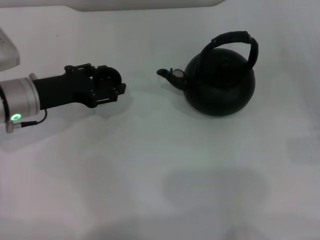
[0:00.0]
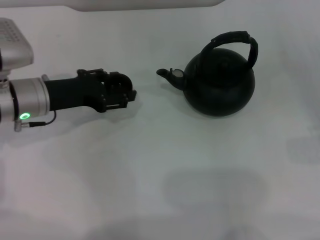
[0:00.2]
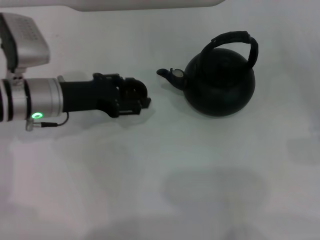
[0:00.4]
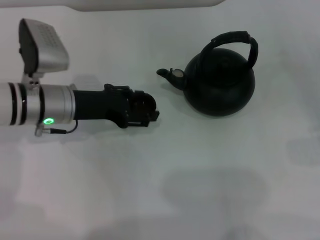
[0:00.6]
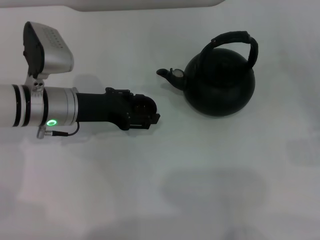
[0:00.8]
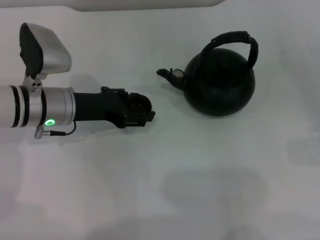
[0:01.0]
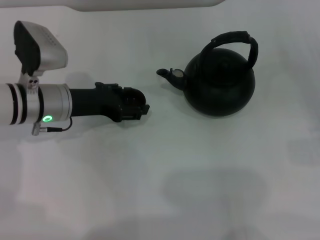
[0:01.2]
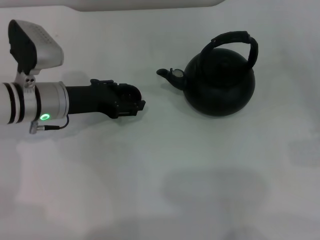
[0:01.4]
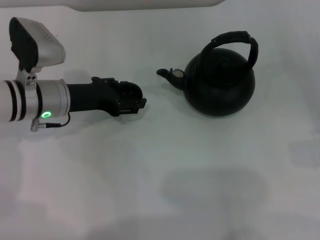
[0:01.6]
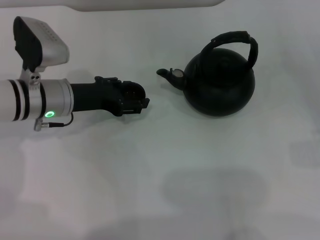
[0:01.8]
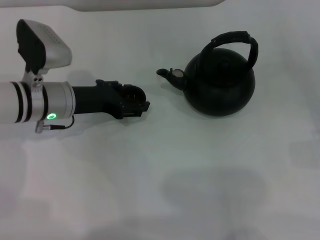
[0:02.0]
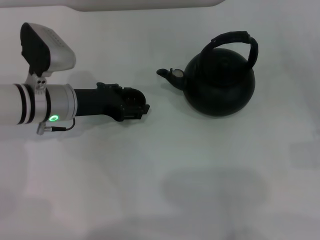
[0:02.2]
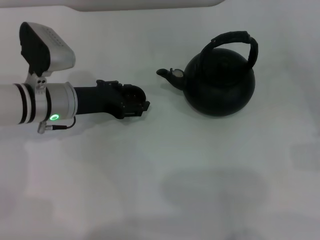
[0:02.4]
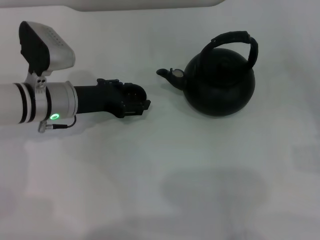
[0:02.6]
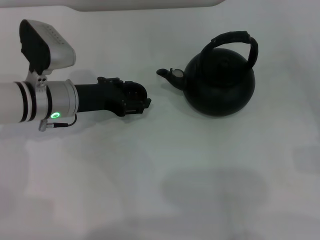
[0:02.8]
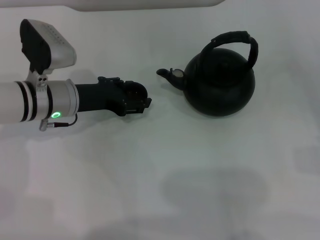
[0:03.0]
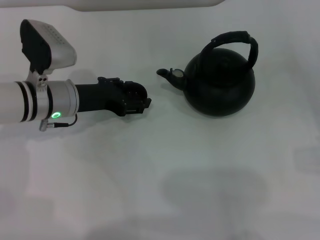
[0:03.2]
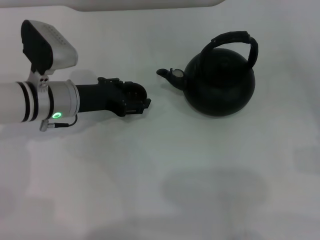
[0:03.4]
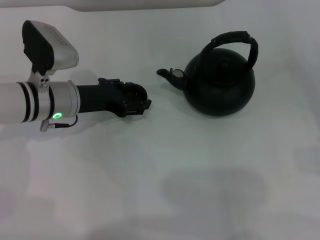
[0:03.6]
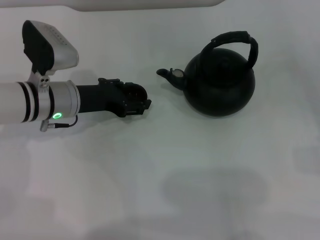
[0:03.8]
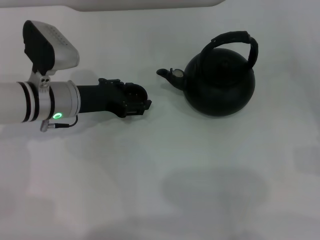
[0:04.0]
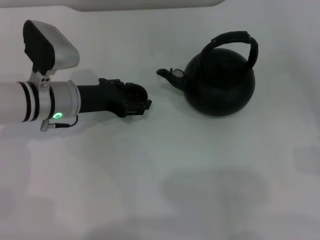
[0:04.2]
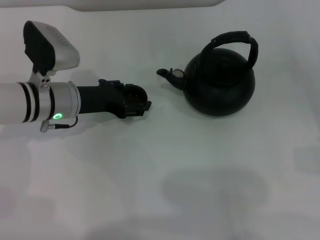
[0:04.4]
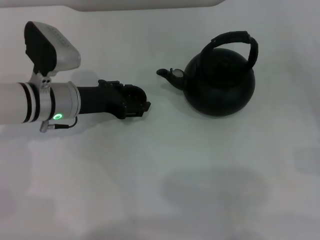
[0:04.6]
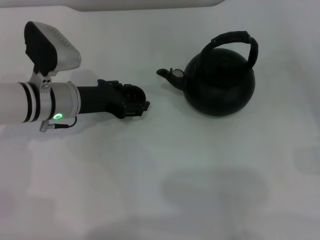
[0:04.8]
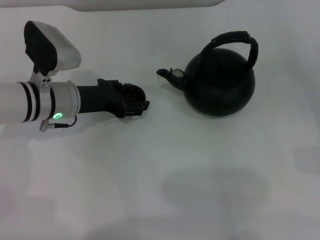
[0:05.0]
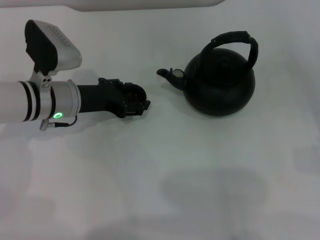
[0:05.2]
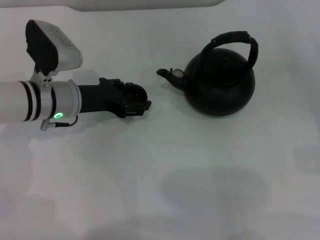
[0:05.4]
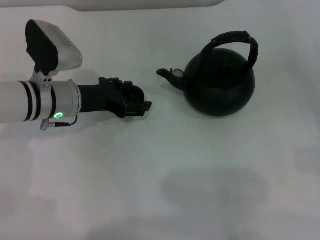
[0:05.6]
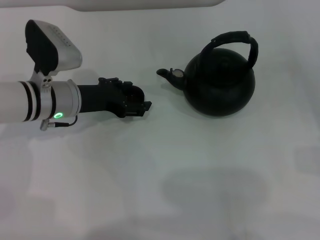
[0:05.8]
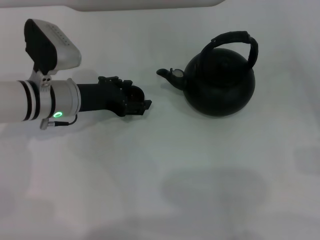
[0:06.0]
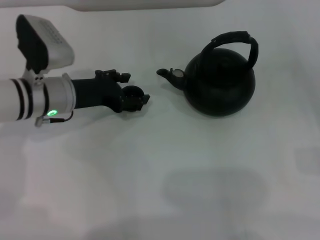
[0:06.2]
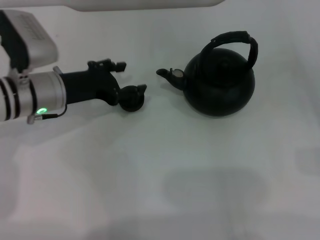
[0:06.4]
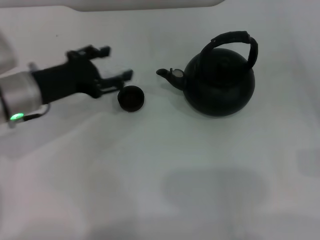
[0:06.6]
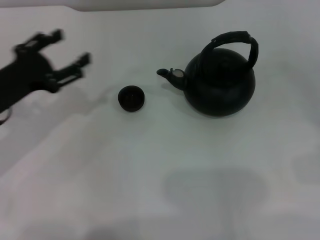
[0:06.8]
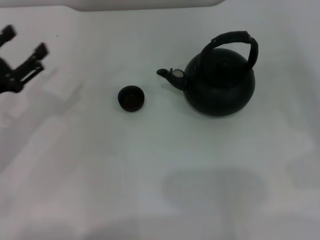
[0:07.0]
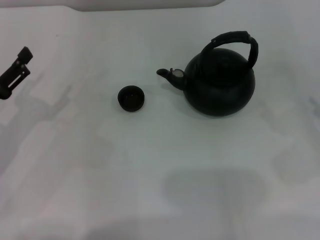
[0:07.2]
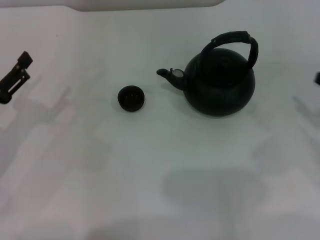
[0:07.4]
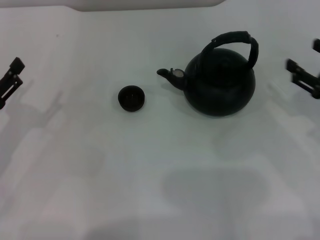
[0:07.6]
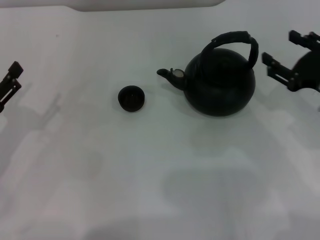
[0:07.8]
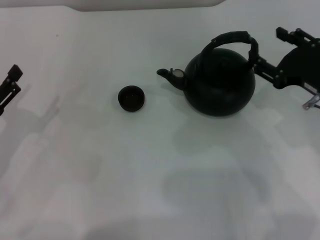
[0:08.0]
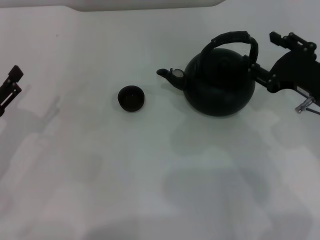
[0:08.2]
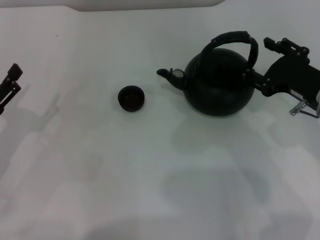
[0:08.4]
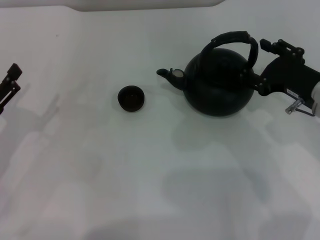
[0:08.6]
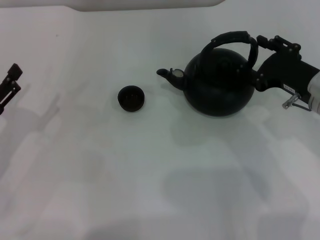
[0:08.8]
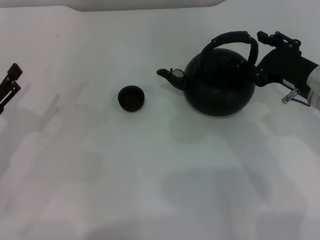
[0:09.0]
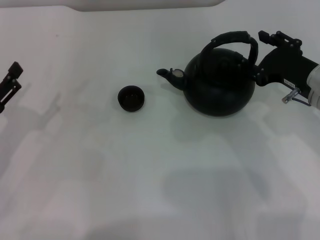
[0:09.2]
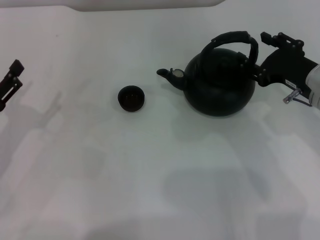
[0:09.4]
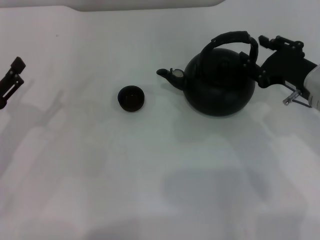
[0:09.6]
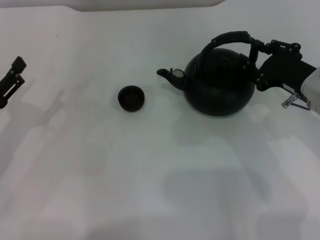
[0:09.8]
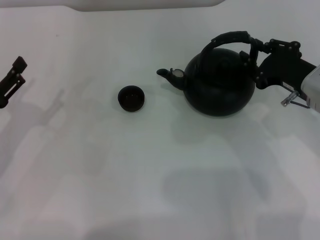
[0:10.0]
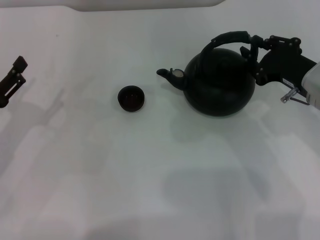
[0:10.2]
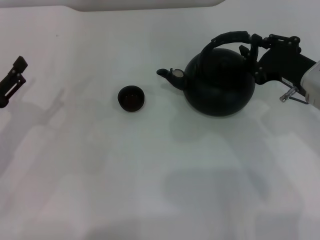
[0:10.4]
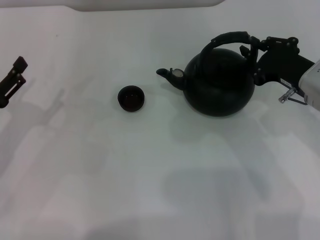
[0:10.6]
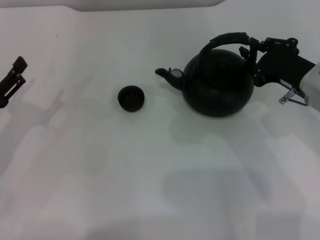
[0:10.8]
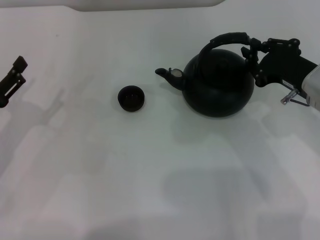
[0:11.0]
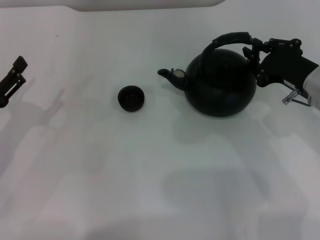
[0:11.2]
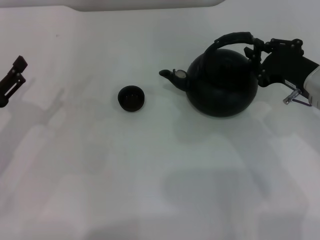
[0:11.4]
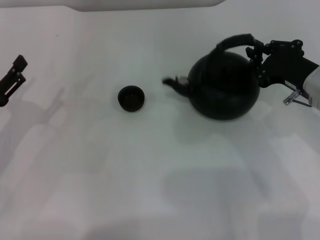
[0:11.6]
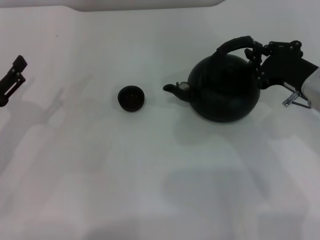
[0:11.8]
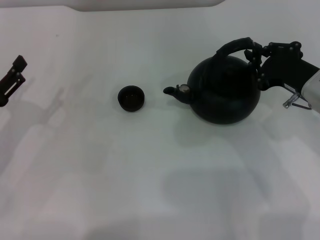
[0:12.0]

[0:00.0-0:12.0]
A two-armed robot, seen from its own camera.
Task of the whole recording: Grasp the handle of the teapot with one hand and pour tea into the teacup.
Step, 0:00.0 to 0:06.2: Place the teacup in the center of view with the left gripper.
0:00.0 to 0:01.6: There are only small adjustments of the grippers.
0:01.6 to 0:03.0: Neither gripper changes place.
0:03.0 to 0:04.4: Both grippers stay about where they are.
0:04.4 to 0:06.0: The left gripper opens up.
0:06.0 to 0:07.6: The left gripper travels to the left and backward by approximately 20 cm. The right gripper is displaced to the left and upward by about 10 cm.
0:07.6 to 0:09.0: The right gripper shifts approximately 10 cm to the left.
0:09.0 to 0:10.4: The right gripper closes up.
0:10.4 to 0:12.0: Both grippers stay put.

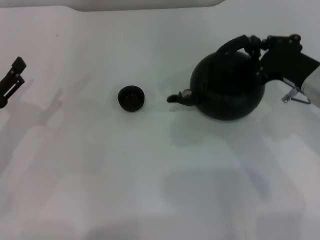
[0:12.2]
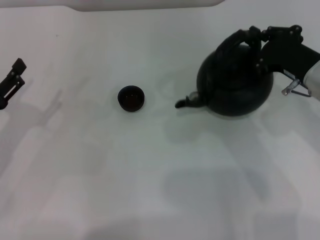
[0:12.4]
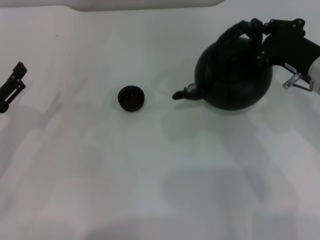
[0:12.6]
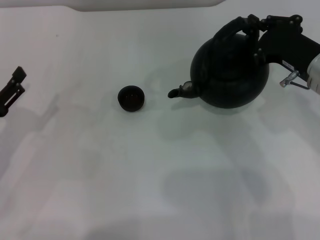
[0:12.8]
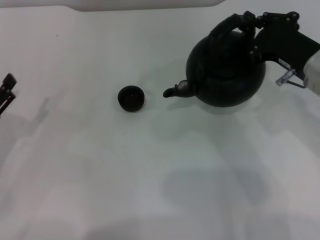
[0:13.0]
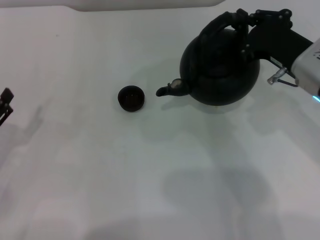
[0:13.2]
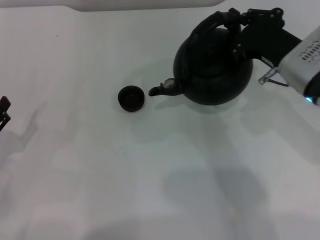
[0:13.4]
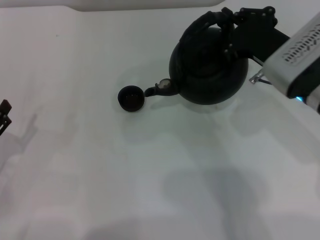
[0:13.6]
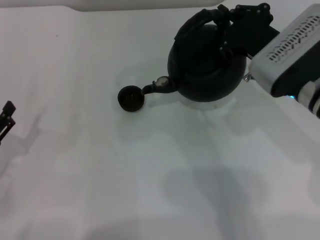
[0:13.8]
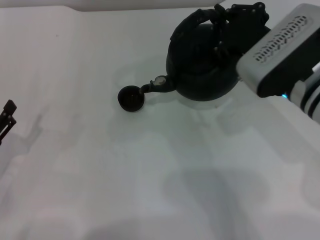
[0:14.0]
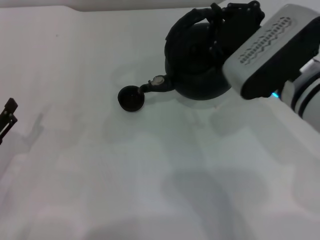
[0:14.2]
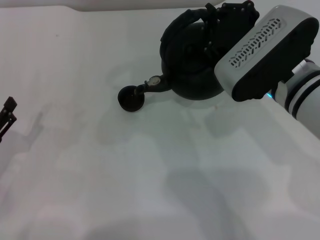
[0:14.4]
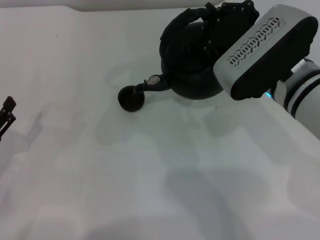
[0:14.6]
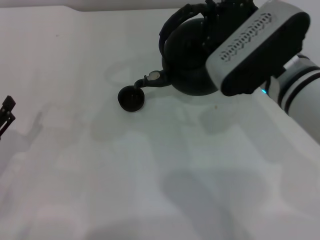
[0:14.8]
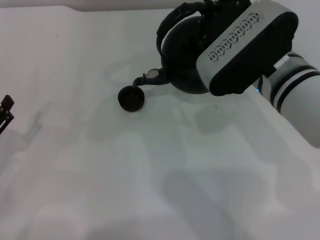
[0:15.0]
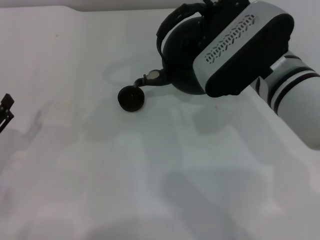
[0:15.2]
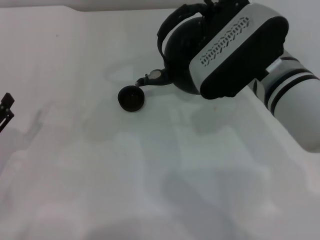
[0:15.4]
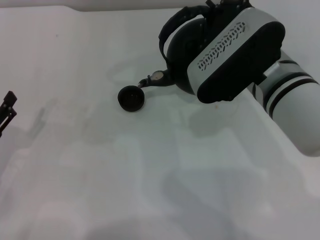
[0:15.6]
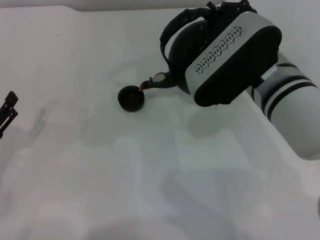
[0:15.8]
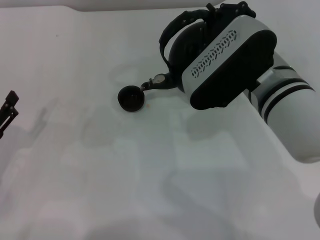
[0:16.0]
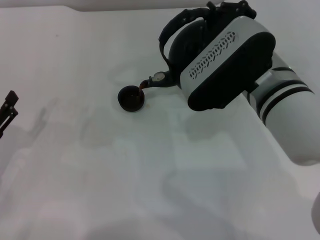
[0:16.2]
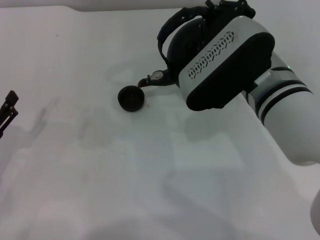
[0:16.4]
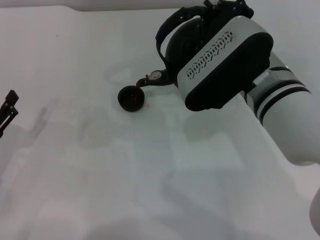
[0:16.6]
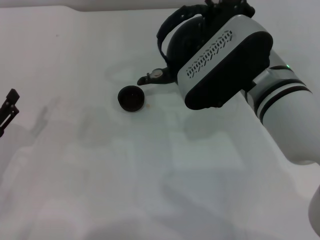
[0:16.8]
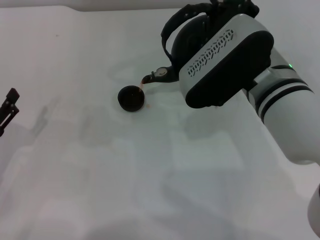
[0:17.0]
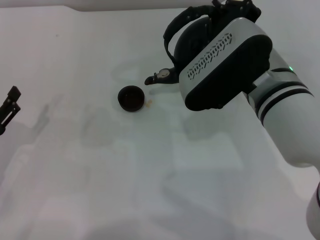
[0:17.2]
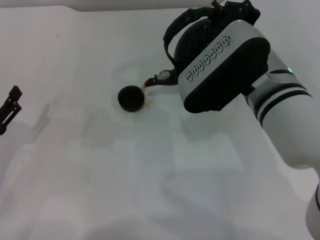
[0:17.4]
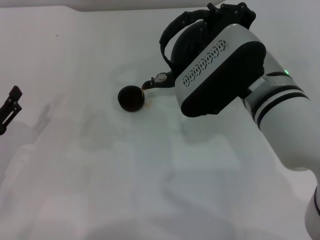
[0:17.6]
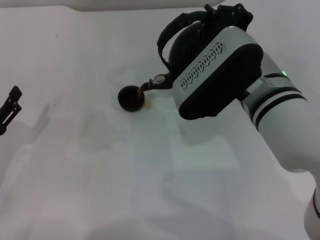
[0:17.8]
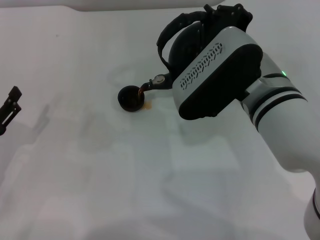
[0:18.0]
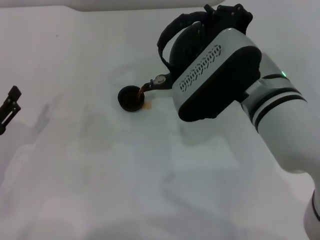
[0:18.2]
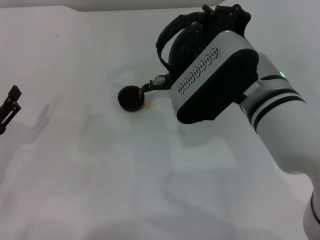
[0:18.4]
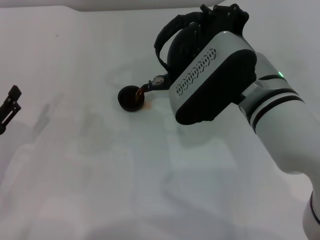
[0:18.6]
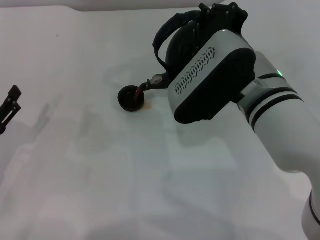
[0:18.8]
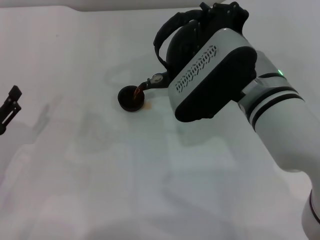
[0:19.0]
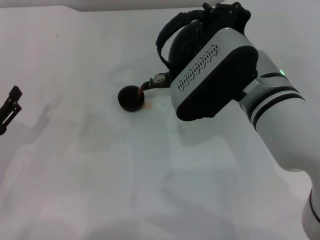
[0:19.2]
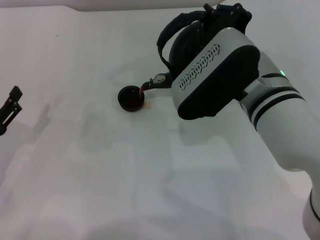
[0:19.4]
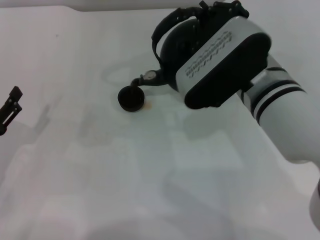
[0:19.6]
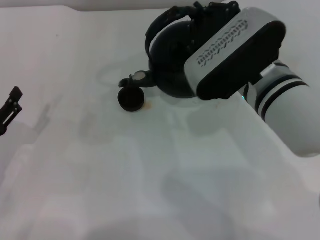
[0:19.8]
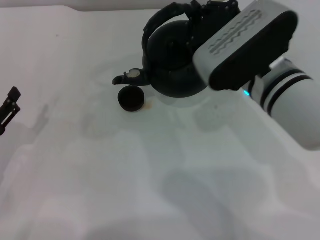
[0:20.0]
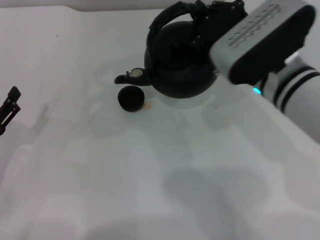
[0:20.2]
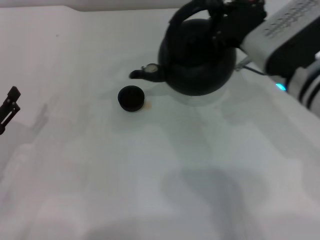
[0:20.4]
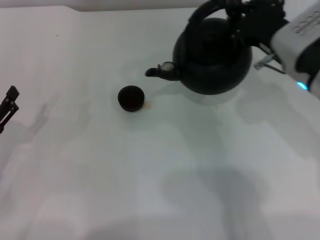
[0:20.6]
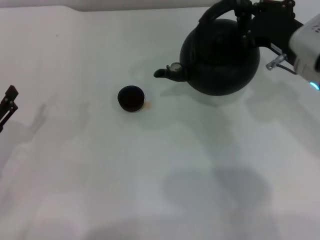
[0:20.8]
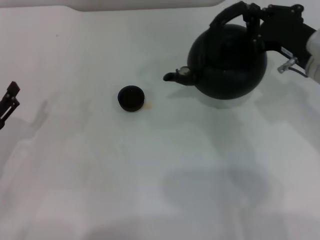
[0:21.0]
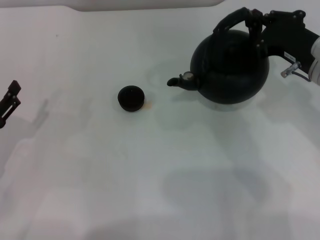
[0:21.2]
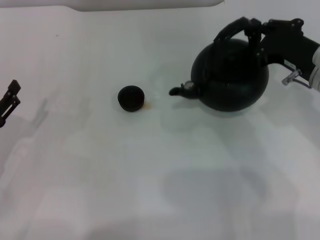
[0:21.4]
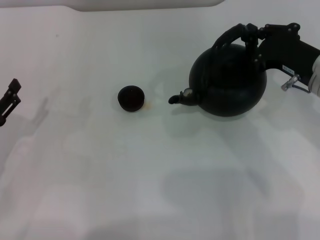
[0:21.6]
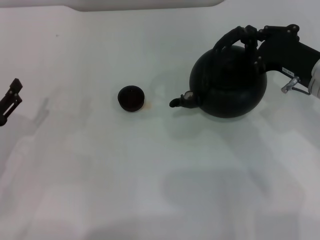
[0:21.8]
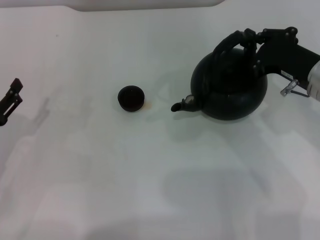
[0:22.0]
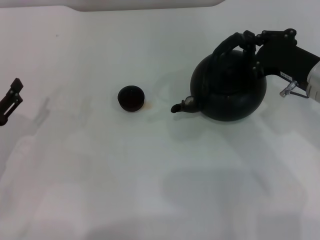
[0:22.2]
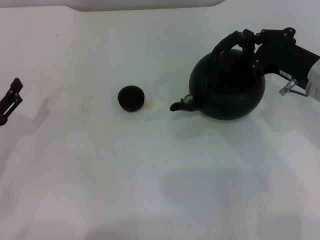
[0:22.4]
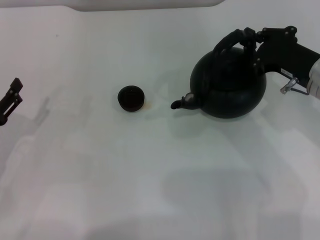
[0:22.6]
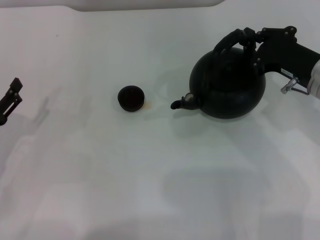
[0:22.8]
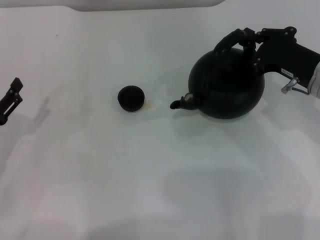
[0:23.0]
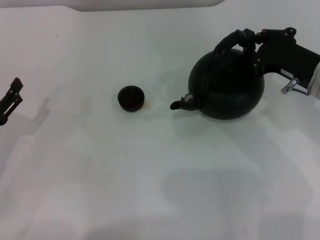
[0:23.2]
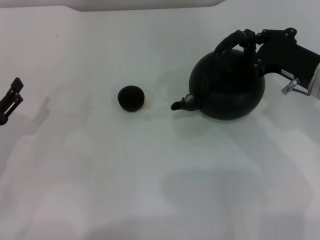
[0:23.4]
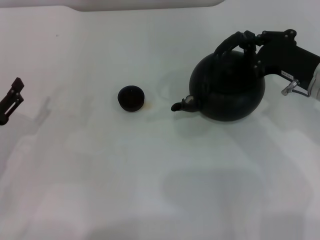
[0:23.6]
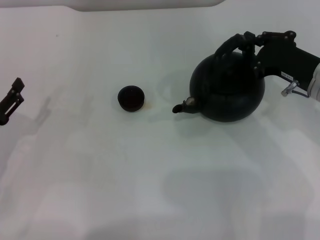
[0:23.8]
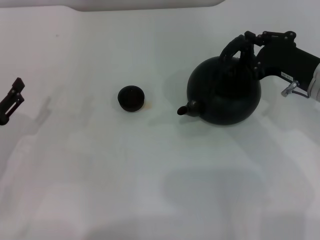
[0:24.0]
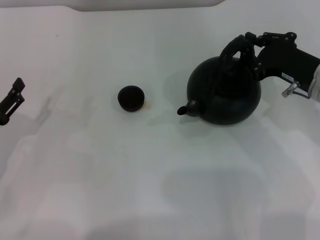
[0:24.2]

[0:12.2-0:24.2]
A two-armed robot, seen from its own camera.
Task of the whole recording: Grasp the handle of the teapot with one hand and pour tea into the teacup.
Step, 0:13.2 to 0:20.0: Pour tea into the teacup with the right gripper.
0:12.2 to 0:13.8: The left gripper travels backward by about 5 cm. The right gripper goes approximately 5 cm to the left.
0:13.8 to 0:15.2: The right gripper changes place by roughly 5 cm.
0:15.2 to 0:16.6: The grippers stay close to where they were, moving slightly.
0:16.6 to 0:18.2: Both grippers stay put.
0:18.2 to 0:19.8: The grippers move only a little.
0:19.8 to 0:21.2: The right gripper travels to the right by approximately 10 cm.
0:21.2 to 0:22.6: The grippers move only a little.
0:22.6 to 0:24.2: The two grippers keep their place.
